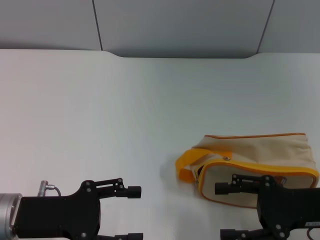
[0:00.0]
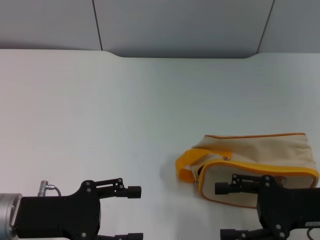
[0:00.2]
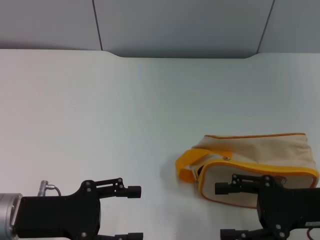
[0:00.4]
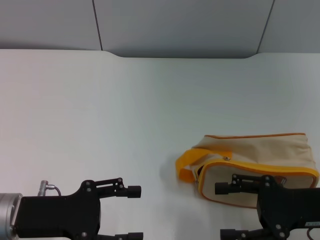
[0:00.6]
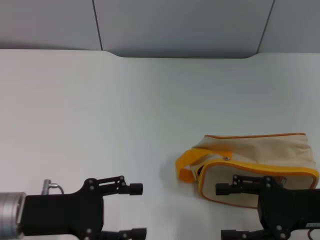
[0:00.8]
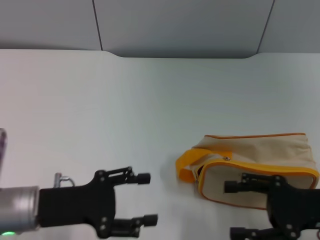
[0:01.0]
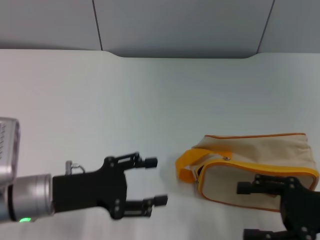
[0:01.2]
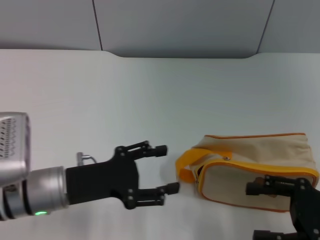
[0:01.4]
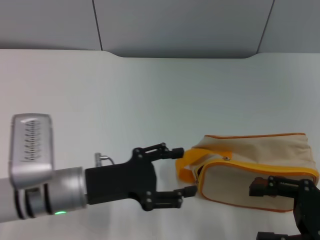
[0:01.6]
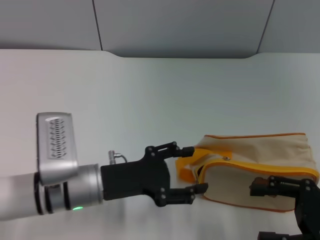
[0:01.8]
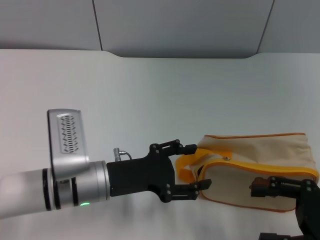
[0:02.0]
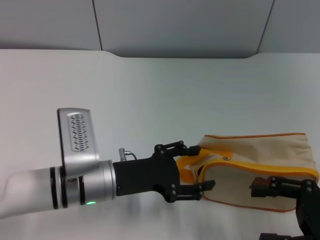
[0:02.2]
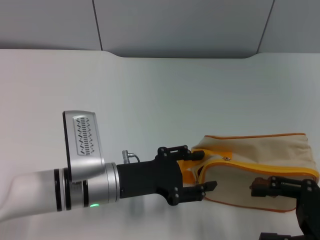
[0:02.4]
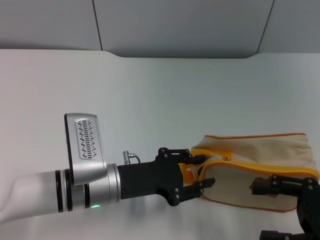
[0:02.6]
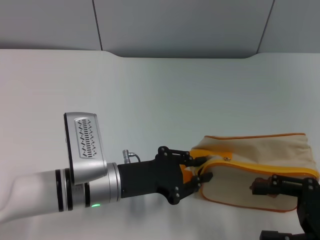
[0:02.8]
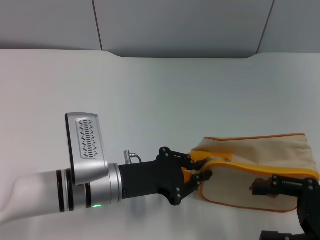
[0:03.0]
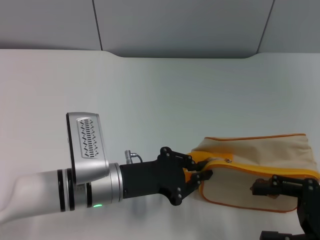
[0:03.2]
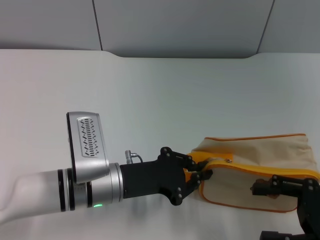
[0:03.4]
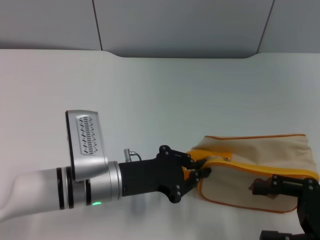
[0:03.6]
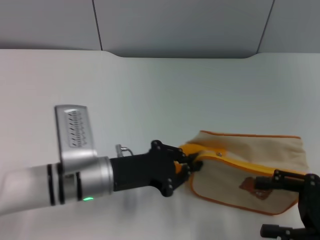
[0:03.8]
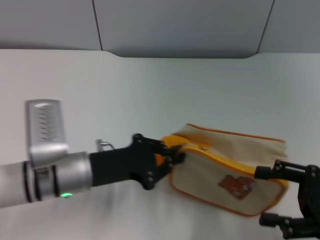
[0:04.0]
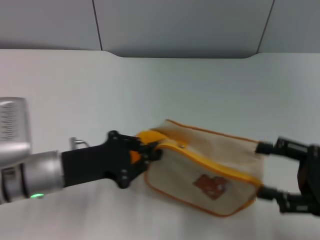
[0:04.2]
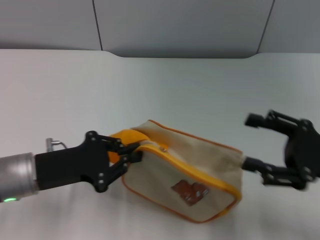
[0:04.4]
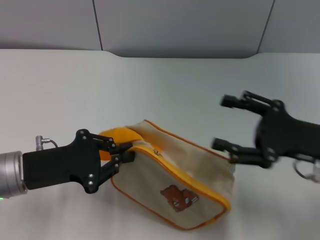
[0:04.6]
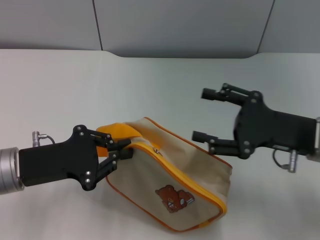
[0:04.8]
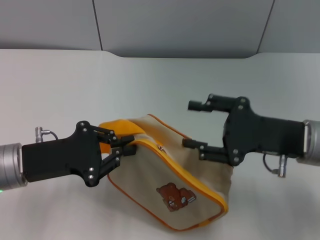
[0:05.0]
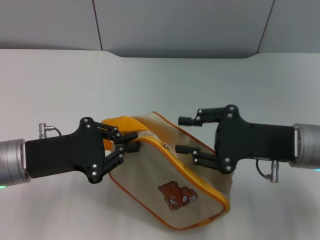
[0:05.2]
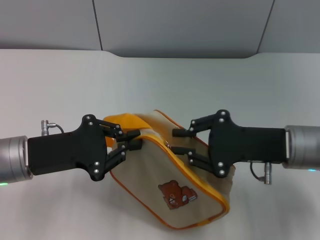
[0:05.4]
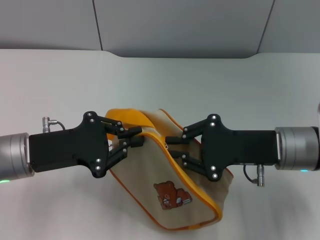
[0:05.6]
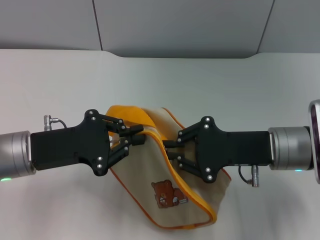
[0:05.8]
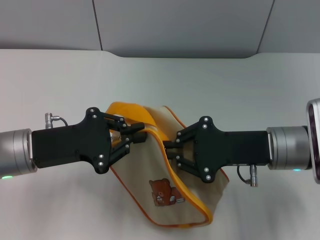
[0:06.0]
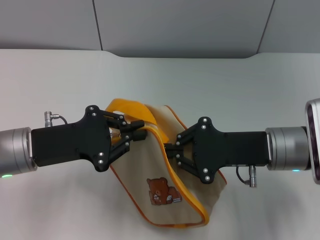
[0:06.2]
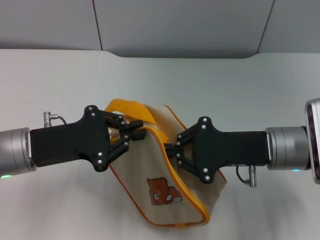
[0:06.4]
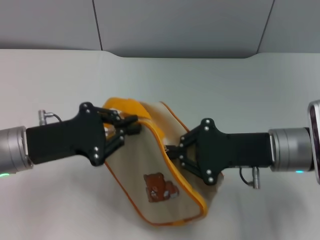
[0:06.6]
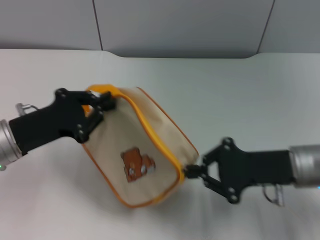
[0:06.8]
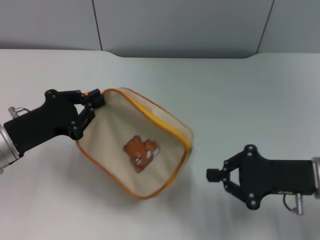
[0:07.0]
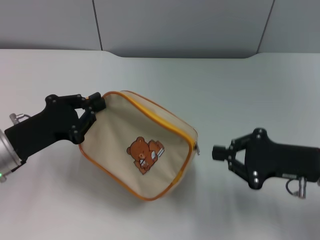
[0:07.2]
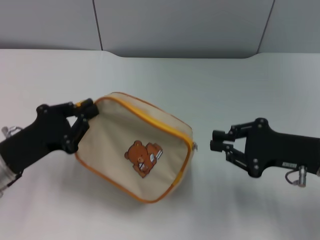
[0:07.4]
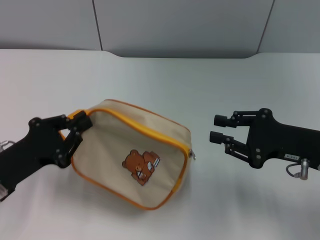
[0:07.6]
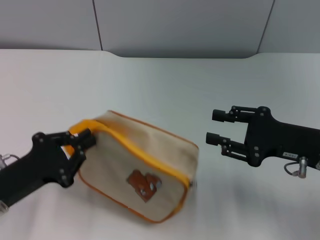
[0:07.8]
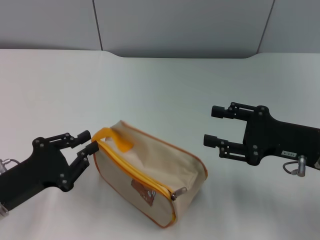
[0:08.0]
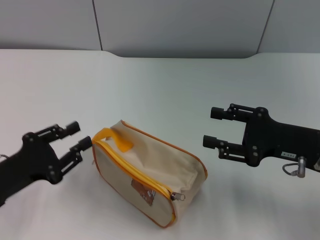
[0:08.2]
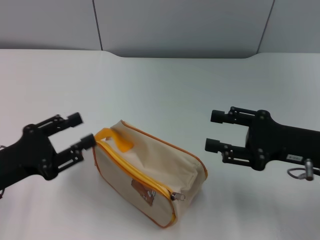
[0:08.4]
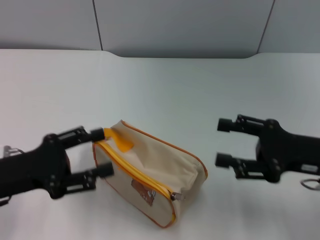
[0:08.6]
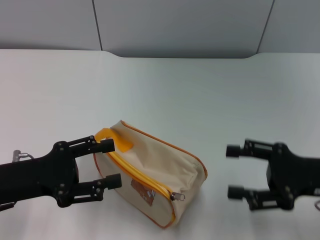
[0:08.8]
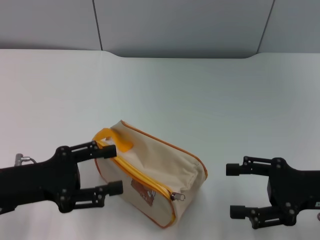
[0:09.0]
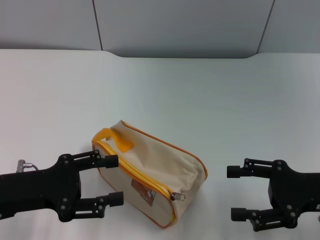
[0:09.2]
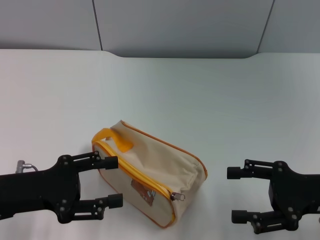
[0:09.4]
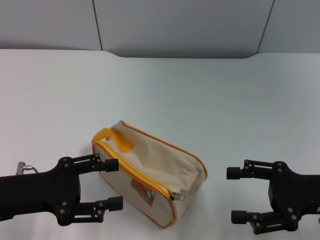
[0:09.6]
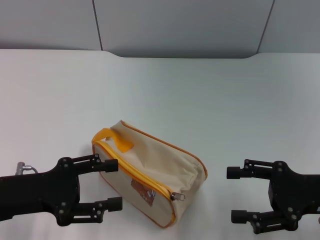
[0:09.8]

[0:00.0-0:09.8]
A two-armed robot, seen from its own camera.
Step, 0:00.0 to 0:04.6: Pick up the bag with left gripper.
Step, 0:04.8 to 0:07.2: Unzip the zipper of bag with right gripper.
Step, 0:07.4 to 0:08.2: Place the bag on the table with left gripper.
0:00.0 to 0:01.4: The left gripper ends up some 5 cm from where it was.
0:01.4 to 0:02.8: The left gripper goes about 5 cm to the right, and closes its fingers.
0:02.8 to 0:04.2: The left gripper moves to the left, about 10 cm, and closes.
0:04.2 to 0:05.6: The right gripper shifts some 15 cm to the left and forward, and closes.
0:05.6 to 0:07.0: The right gripper moves to the right, some 5 cm.
0:07.0 to 0:08.4: The left gripper moves backward, about 5 cm, and opens up. The right gripper opens up.
0:08.4 to 0:09.8: The left gripper opens up.

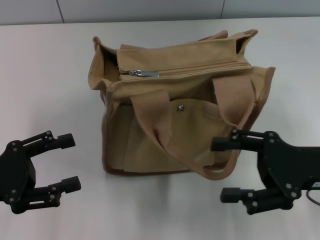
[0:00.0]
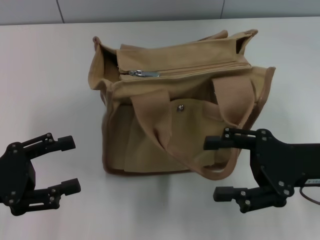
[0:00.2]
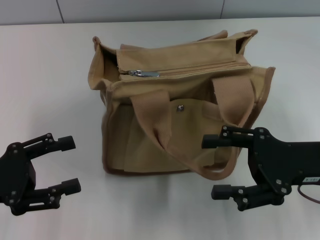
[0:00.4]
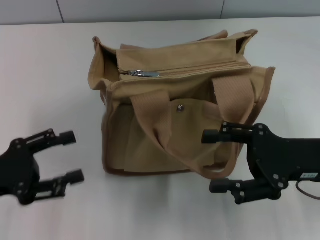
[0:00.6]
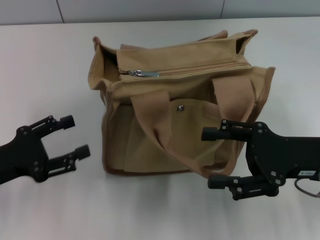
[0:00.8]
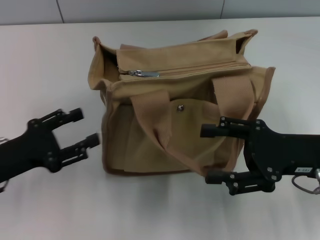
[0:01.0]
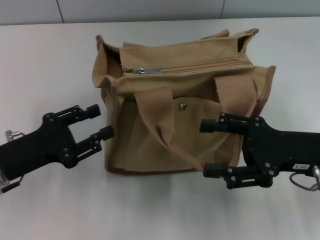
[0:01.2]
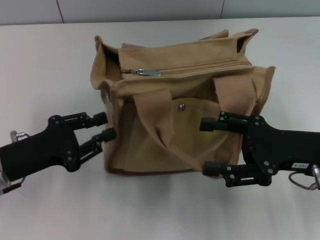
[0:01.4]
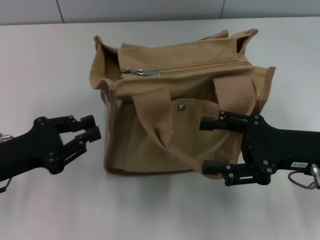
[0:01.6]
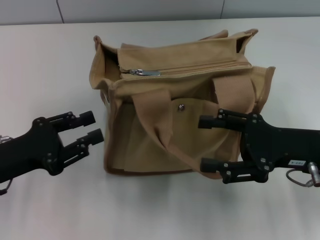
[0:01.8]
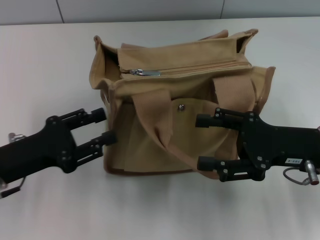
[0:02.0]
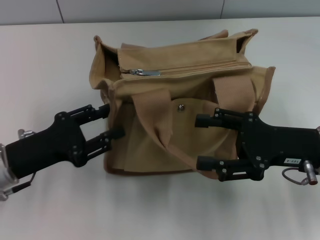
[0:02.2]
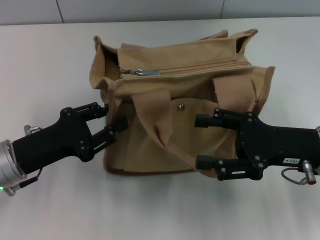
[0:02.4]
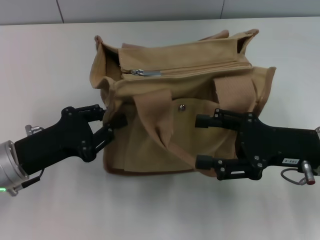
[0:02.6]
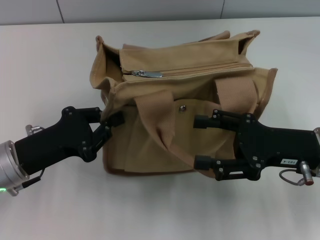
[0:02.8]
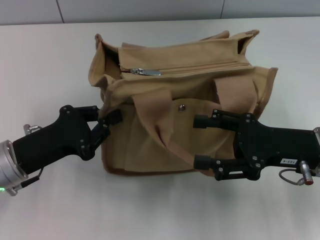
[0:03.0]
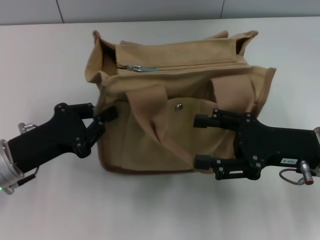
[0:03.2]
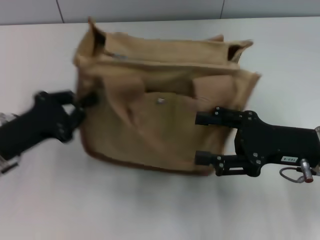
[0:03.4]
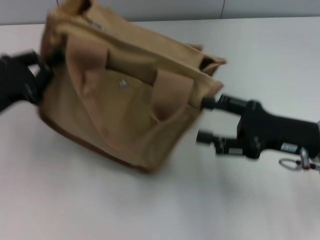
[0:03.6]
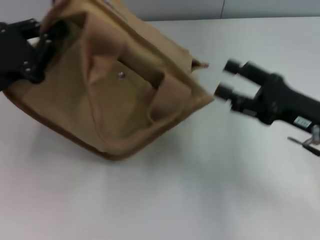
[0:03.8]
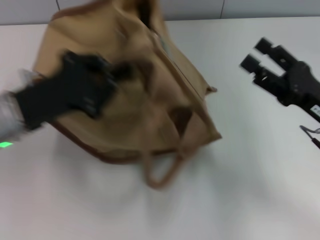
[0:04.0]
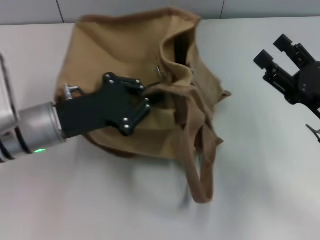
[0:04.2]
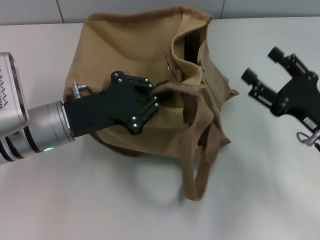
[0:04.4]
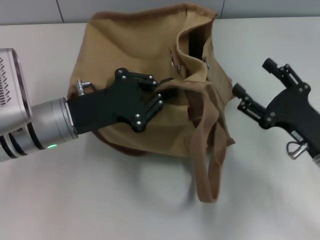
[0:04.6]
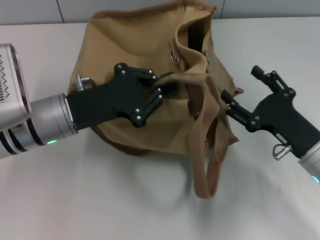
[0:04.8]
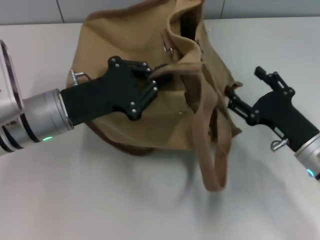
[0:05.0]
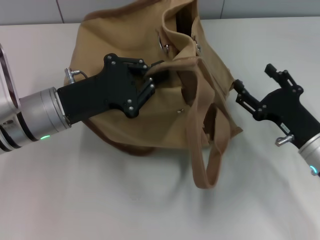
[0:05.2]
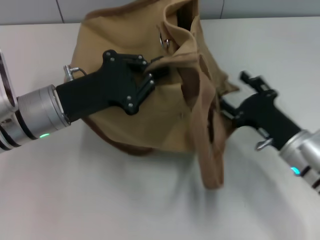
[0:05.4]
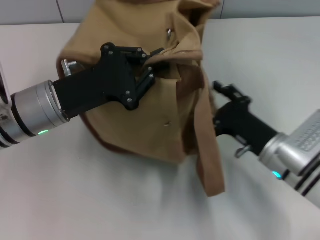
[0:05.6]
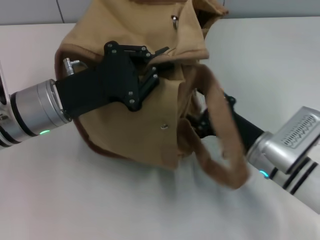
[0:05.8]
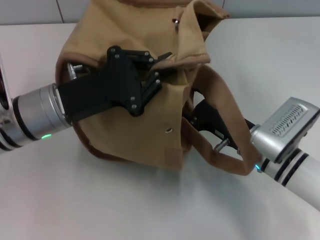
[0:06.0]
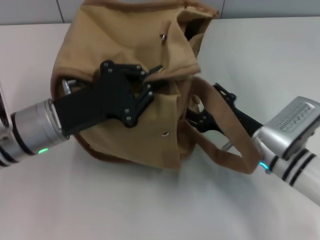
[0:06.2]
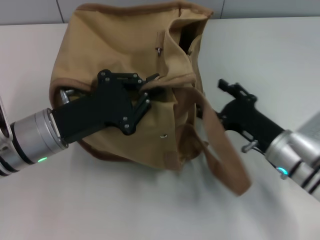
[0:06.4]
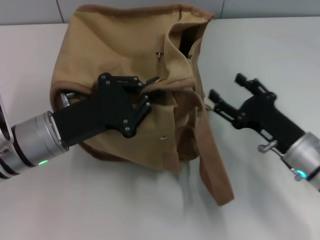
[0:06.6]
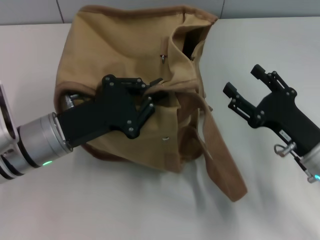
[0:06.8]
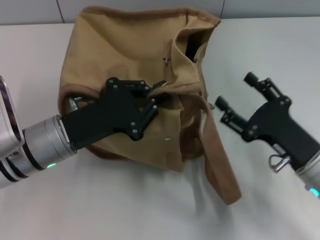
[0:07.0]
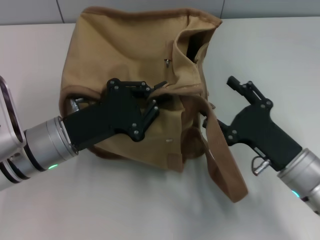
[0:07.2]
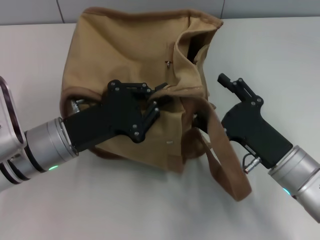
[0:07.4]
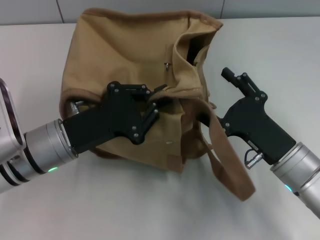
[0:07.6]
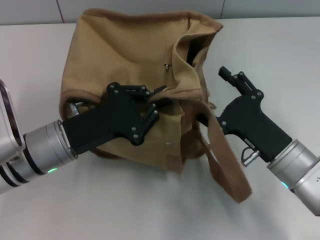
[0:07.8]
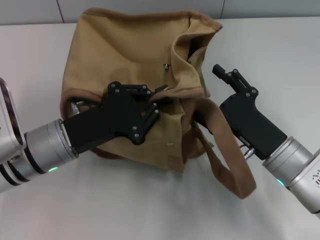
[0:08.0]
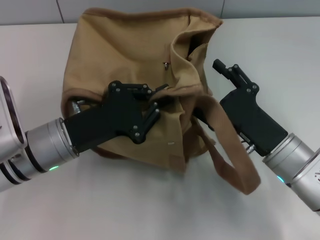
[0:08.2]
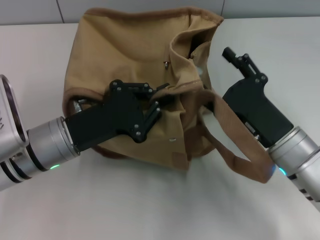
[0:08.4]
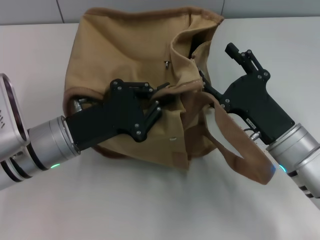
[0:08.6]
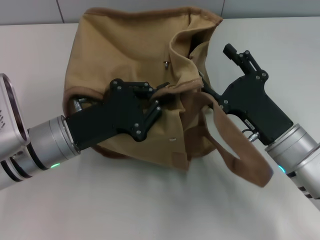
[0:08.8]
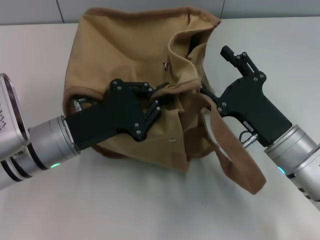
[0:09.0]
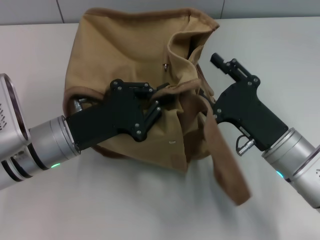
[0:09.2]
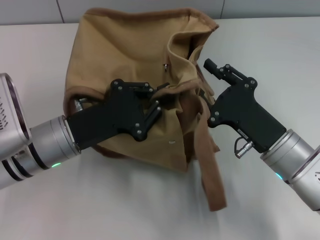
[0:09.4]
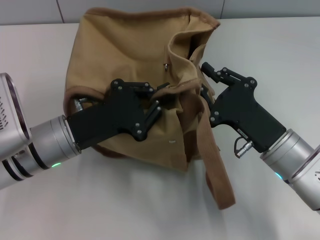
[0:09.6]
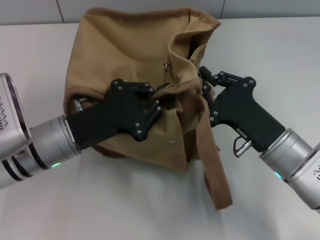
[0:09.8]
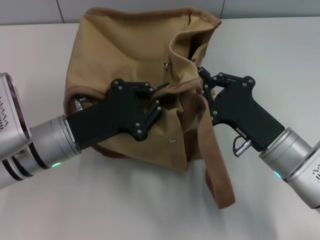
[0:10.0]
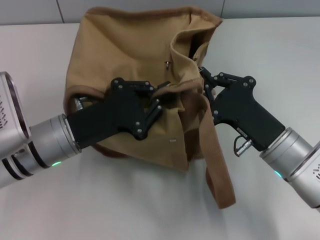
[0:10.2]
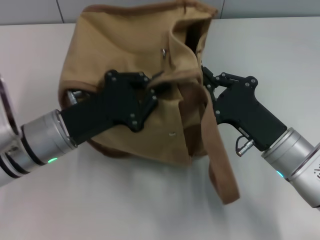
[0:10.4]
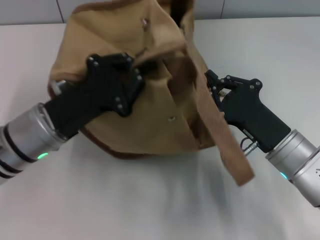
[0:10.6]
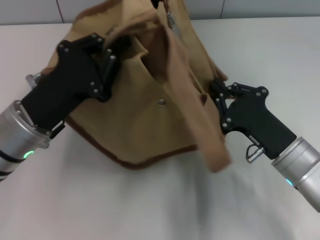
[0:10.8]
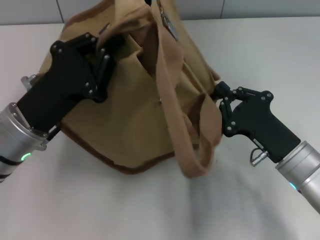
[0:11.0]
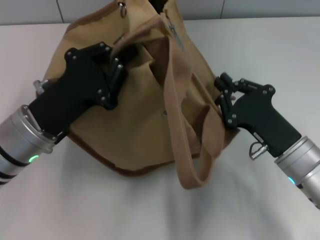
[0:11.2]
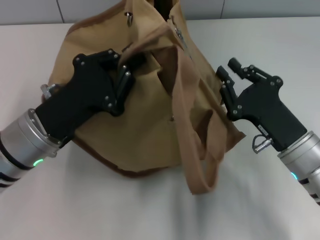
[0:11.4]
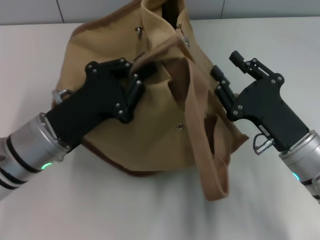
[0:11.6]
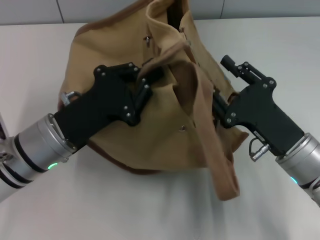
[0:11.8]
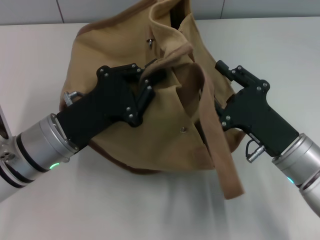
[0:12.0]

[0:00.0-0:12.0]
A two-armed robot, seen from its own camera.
0:00.0 to 0:01.6: The left gripper closes.
0:01.6 to 0:03.0: The grippers make only small movements.
0:03.0 to 0:04.4: The left gripper is displaced to the right and forward by about 10 cm.
0:04.4 to 0:06.0: The right gripper is displaced to the left by roughly 10 cm.
0:06.0 to 0:07.6: The left gripper ends up some 5 cm from where it was.
0:07.6 to 0:09.0: The grippers stay close to where they were, moving slightly.
0:09.0 to 0:10.4: The right gripper closes its fingers.
0:10.4 to 0:12.0: The right gripper opens its fingers.
